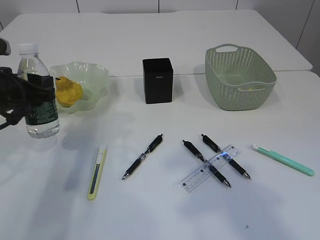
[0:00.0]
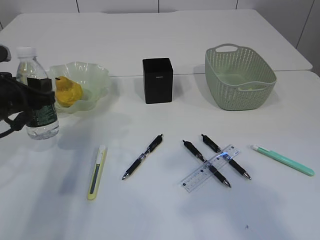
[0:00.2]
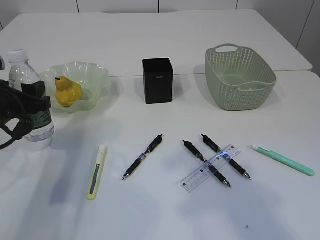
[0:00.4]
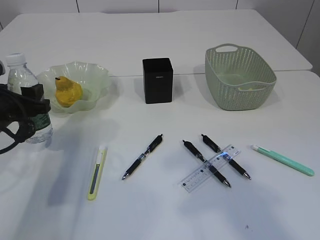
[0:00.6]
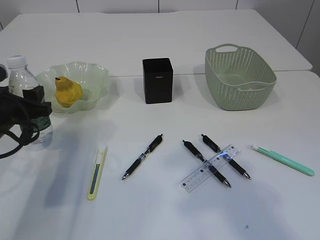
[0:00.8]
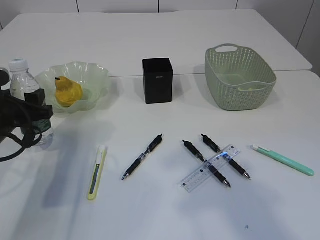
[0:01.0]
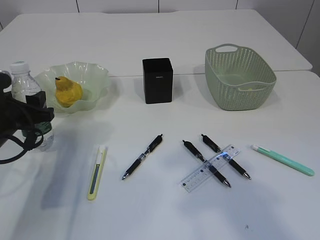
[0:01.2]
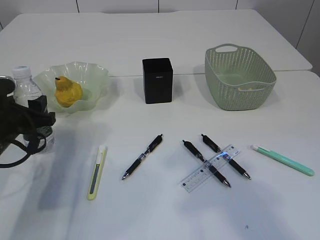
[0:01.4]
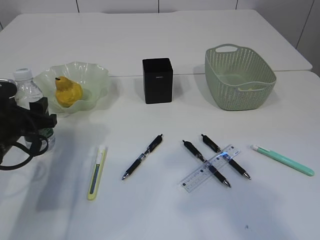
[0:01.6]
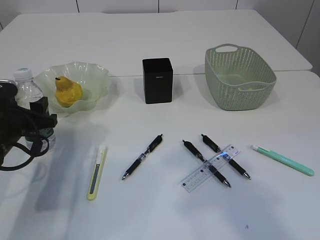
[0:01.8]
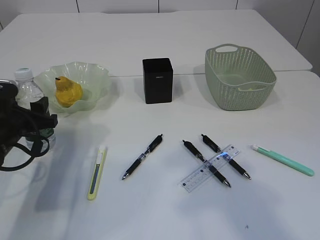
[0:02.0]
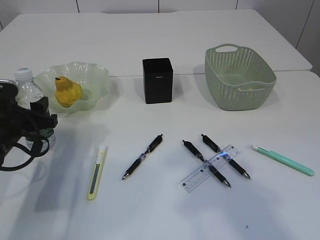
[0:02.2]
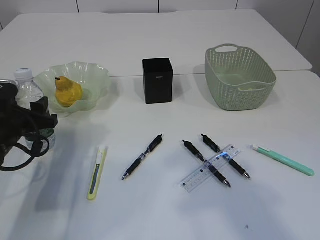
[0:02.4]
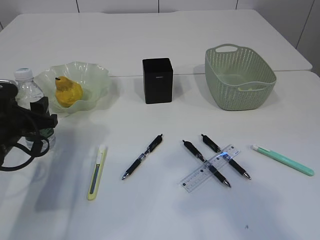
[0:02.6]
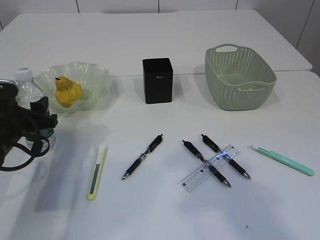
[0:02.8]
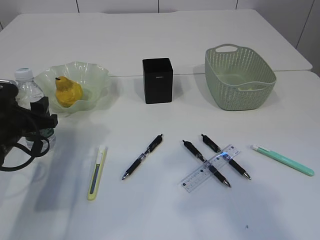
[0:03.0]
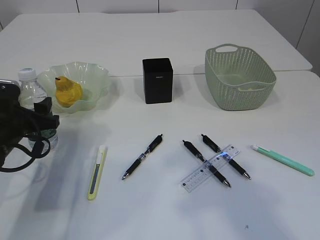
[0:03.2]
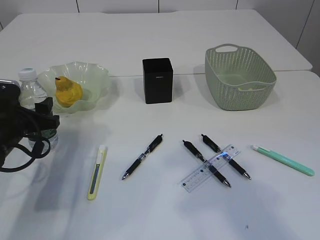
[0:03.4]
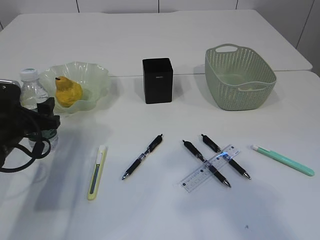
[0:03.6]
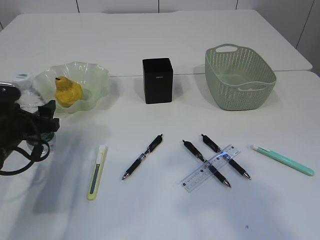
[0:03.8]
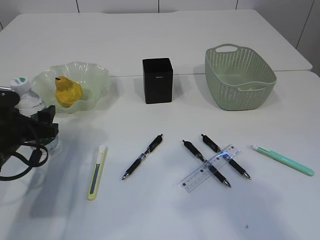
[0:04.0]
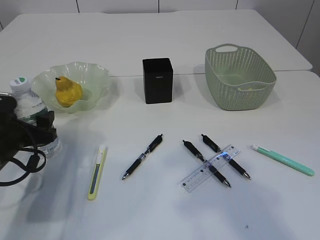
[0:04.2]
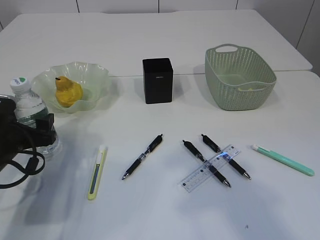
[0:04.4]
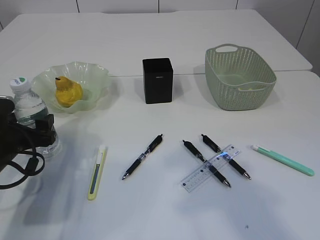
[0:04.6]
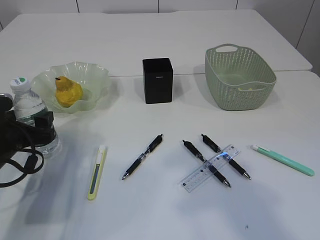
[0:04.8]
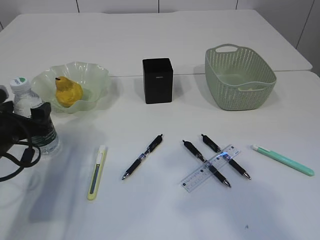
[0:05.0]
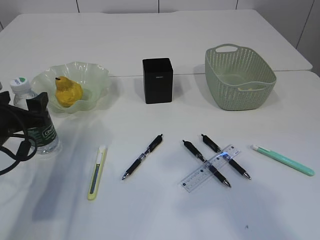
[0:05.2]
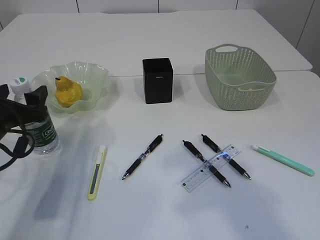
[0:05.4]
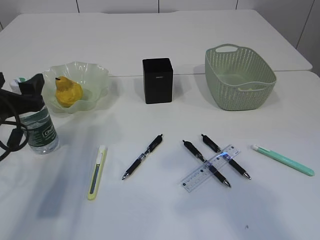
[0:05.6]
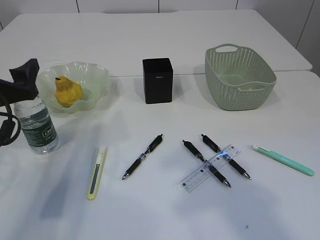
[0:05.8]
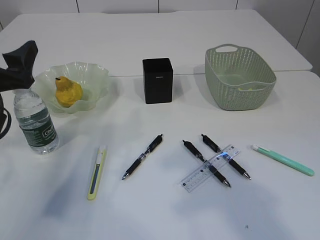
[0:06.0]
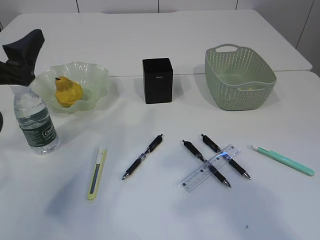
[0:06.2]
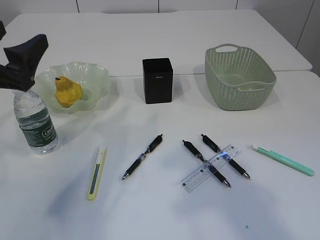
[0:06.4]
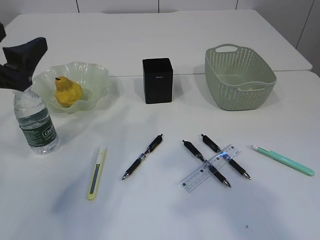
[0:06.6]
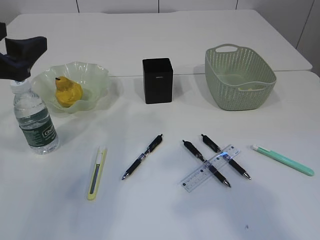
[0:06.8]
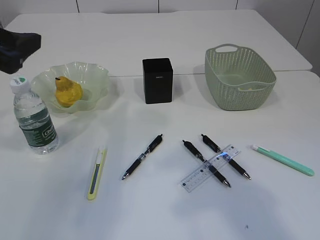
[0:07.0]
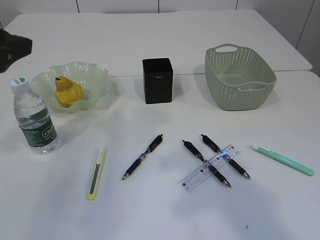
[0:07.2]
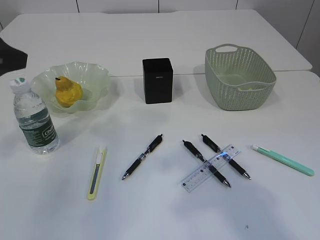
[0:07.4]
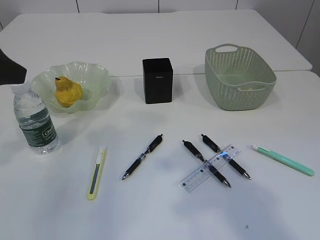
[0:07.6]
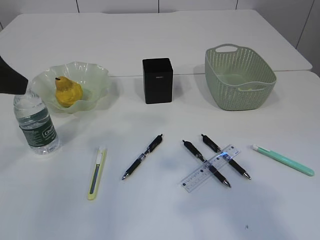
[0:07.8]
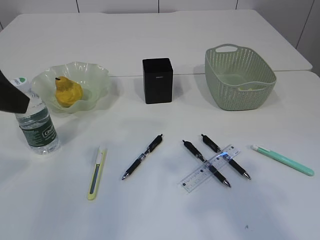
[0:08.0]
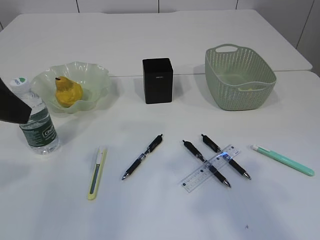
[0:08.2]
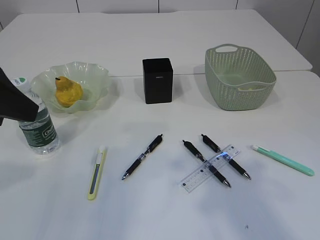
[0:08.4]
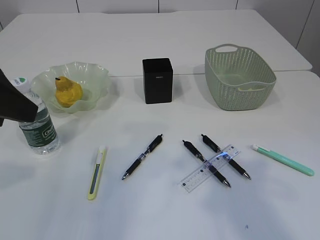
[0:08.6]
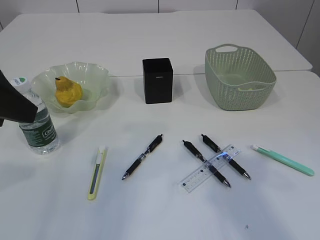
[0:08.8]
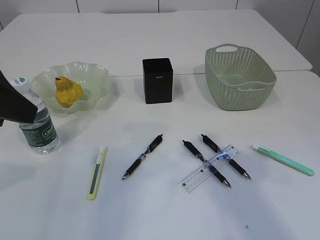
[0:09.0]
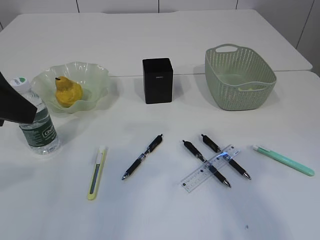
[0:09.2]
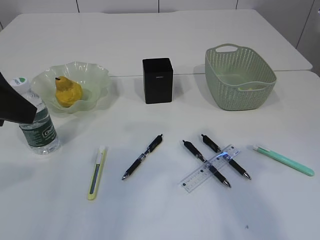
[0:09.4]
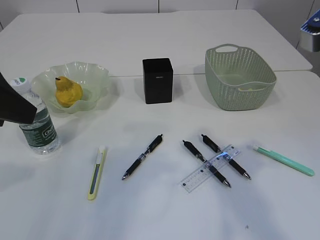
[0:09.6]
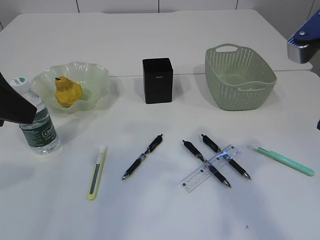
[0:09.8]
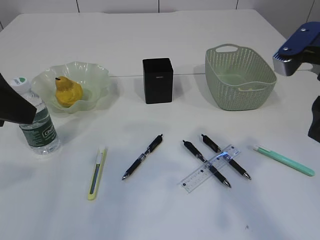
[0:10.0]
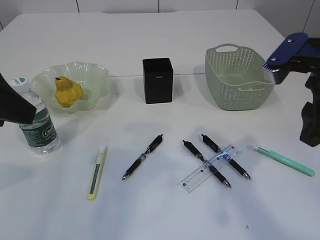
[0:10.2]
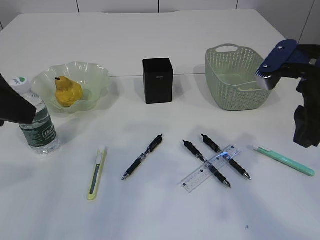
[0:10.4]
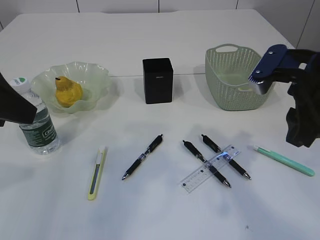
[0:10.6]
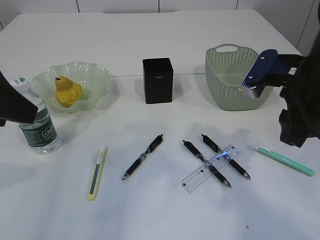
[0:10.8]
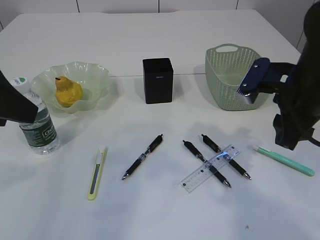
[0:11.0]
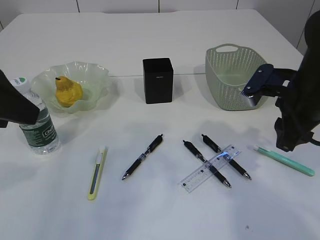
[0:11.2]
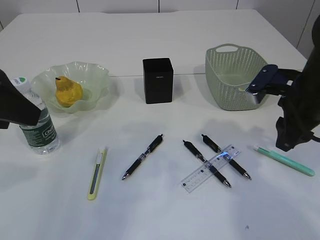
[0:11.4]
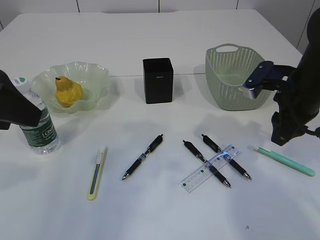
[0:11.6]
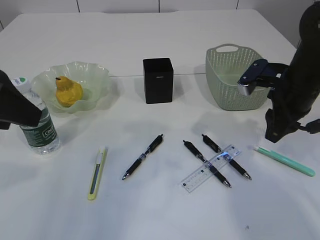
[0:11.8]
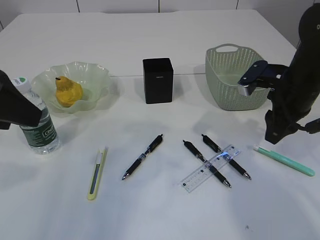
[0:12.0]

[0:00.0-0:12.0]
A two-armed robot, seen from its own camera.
Step, 0:00.0 to 0:06.0: Place the bottle.
0:00.0 to 0:01.6: The left gripper is displaced downward by roughly 10 cm.
0:01.6 to 0:03.0: Neither gripper changes place.
0:03.0 to 0:04.4: The left gripper opens its fingers.
0:04.4 to 0:06.0: The left gripper heads upward, covering approximately 10 cm.
0:06.0 to 0:07.6: The left gripper travels upward by roughly 10 cm.
0:09.0 to 0:10.4: The right gripper moves downward and forward, about 15 cm.
0:10.4 to 0:12.0: The right gripper shifts some 10 cm forward and downward.

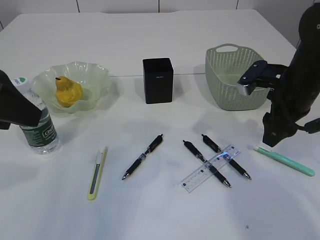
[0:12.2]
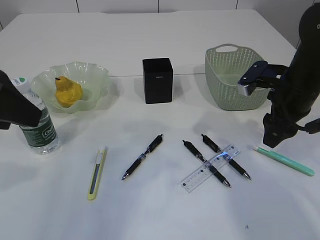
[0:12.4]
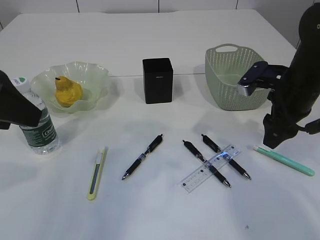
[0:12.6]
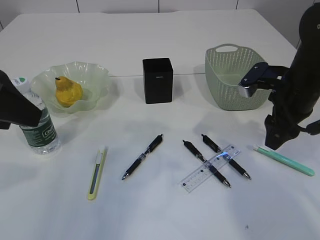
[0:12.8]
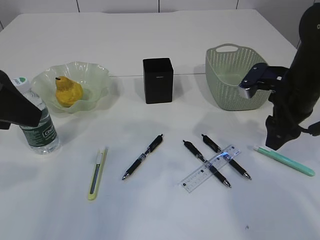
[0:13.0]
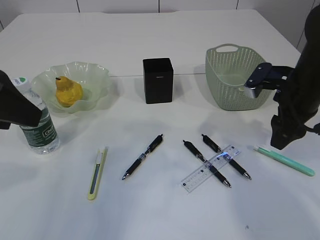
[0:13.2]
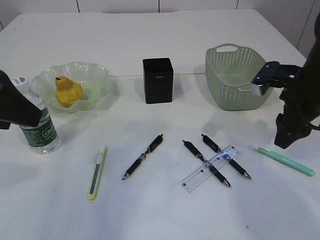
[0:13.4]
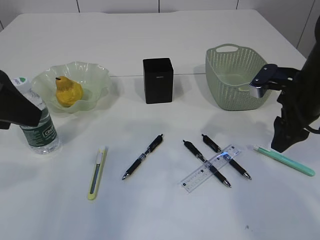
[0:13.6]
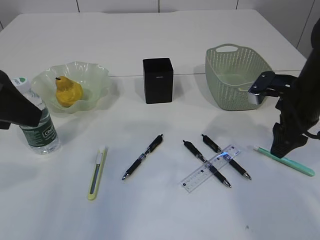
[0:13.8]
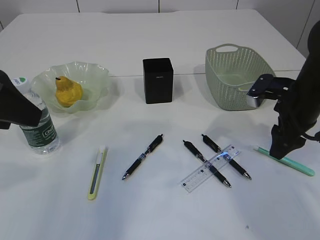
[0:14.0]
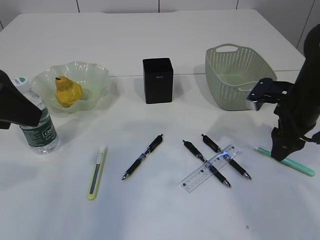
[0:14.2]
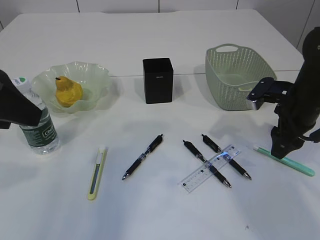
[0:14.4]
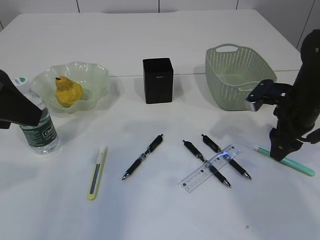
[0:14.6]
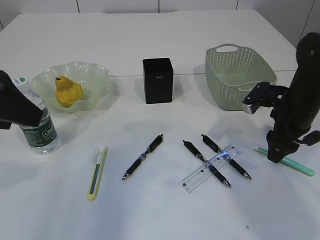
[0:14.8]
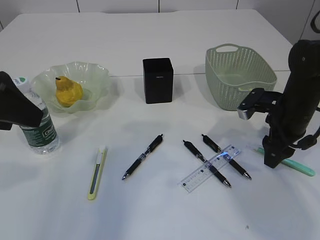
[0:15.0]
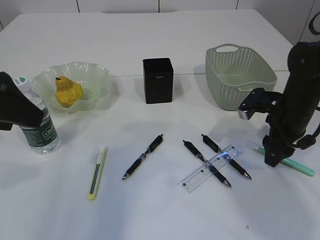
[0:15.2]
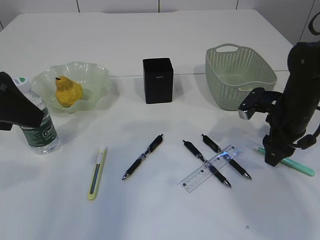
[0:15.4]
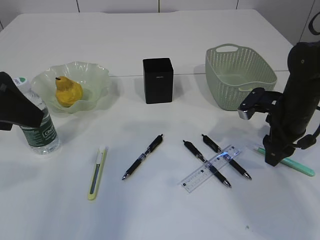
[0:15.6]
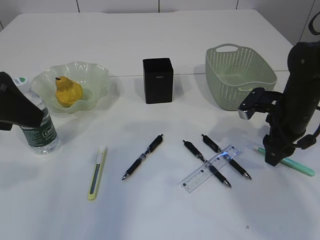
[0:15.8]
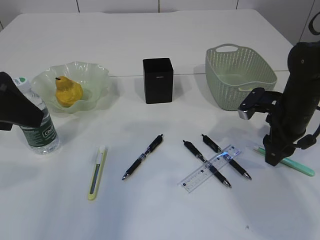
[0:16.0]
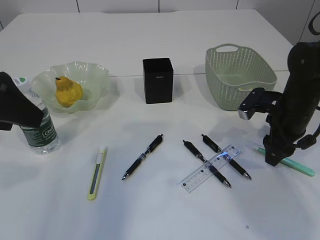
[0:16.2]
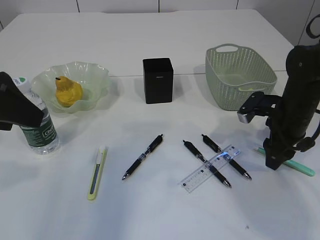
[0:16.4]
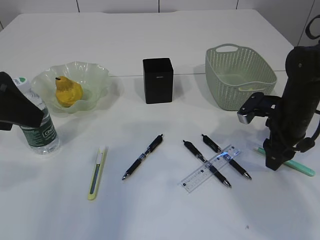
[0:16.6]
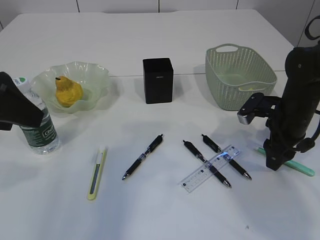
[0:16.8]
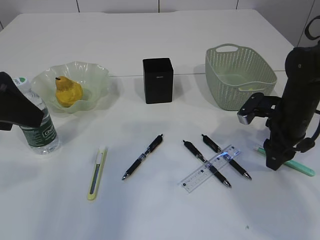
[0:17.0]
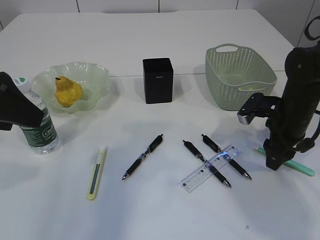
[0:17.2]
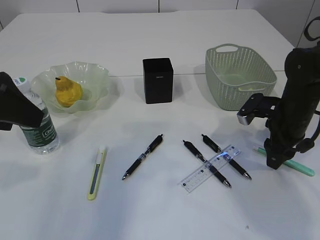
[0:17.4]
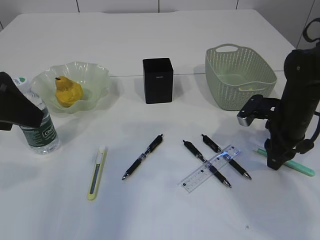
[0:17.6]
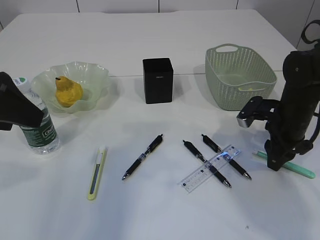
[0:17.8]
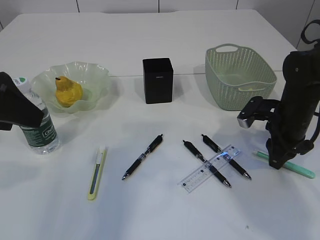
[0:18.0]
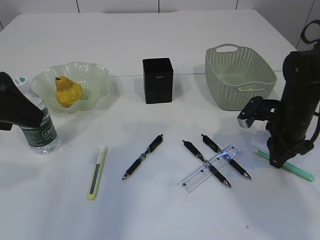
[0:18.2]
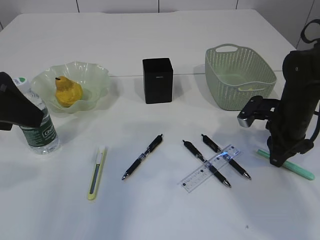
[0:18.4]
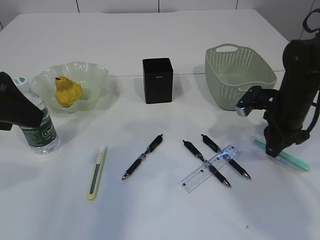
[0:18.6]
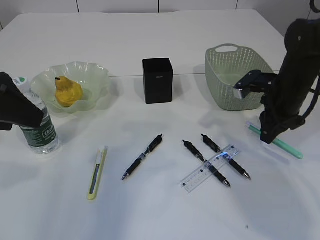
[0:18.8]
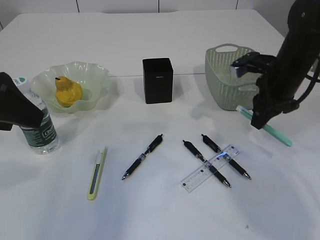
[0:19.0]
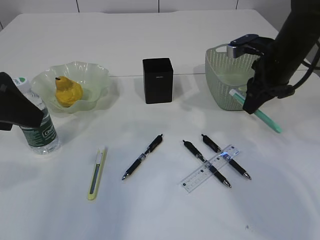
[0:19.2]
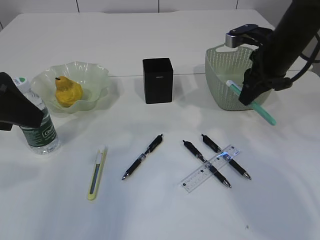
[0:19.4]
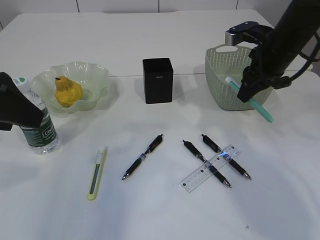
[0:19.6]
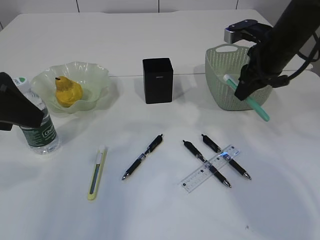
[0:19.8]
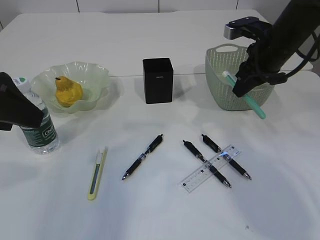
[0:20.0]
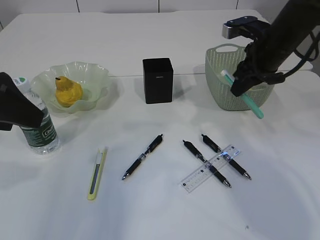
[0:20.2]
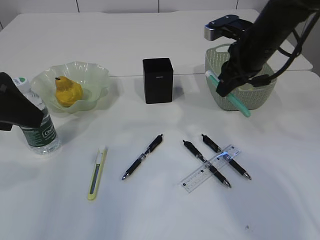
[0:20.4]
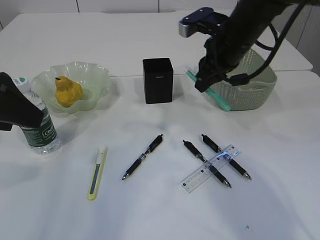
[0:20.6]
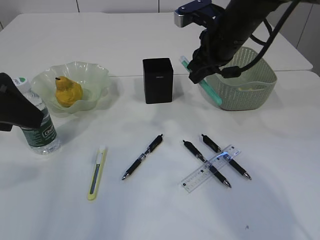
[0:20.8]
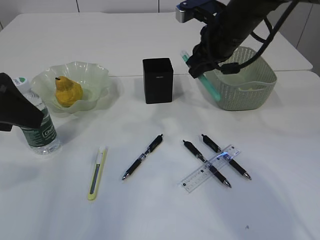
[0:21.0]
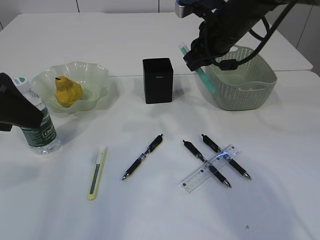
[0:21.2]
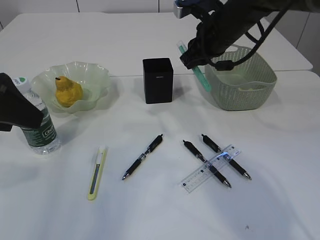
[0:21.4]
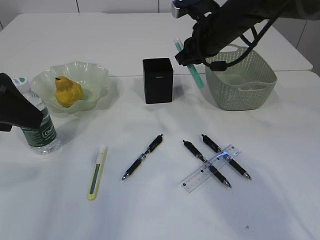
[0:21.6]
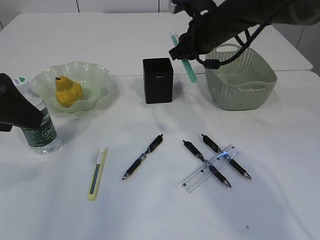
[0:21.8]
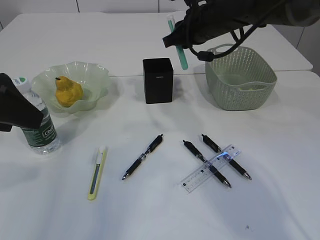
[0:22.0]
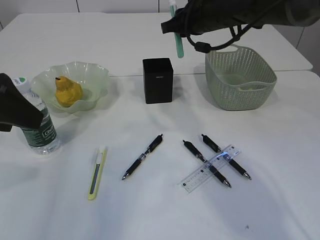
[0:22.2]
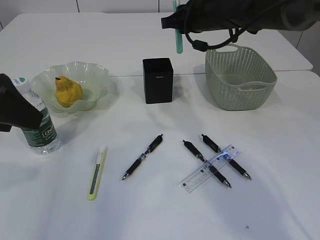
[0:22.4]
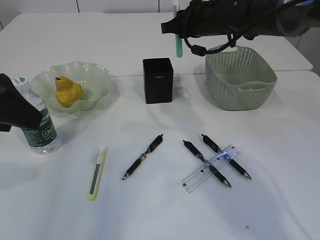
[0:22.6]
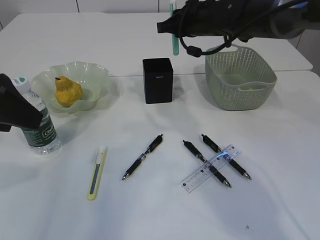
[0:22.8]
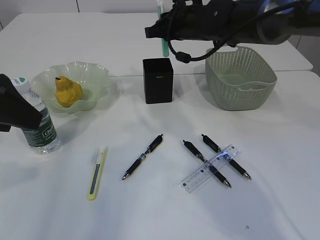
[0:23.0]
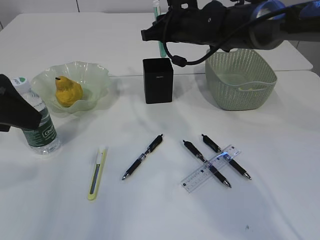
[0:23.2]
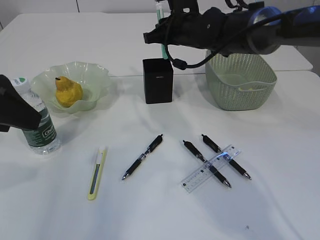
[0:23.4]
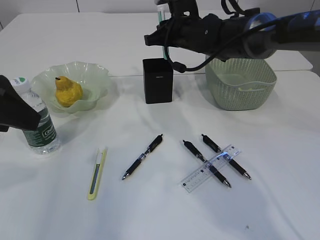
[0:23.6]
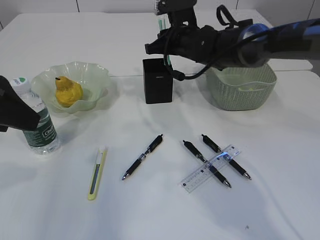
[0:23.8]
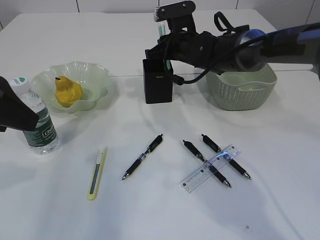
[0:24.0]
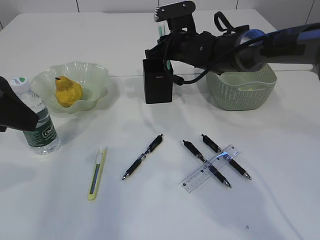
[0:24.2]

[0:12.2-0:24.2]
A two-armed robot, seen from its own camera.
Step, 0:12.2 to 0:19.4: pick up the blue knife.
0:12.2 to 0:13.8: The grippers stay close to where they were, moving slightly.
0:13.8 to 0:15.2: The right gripper changes place by some 5 cm.
0:15.2 to 0:16.6: The two grippers keep their place.
0:16.6 to 0:18.2: The right gripper closes.
0:18.2 to 0:19.8: The right gripper goes some 15 cm upward and forward.
0:19.8 to 0:21.2: The right gripper goes some 10 cm to the left.
0:21.2 to 0:22.6: The right gripper heads forward, covering approximately 5 cm.
0:22.6 to 0:24.2: The right gripper moves downward, approximately 5 cm.
